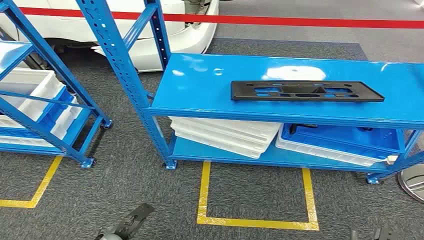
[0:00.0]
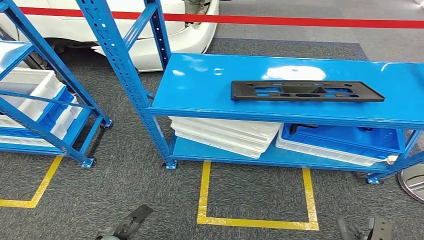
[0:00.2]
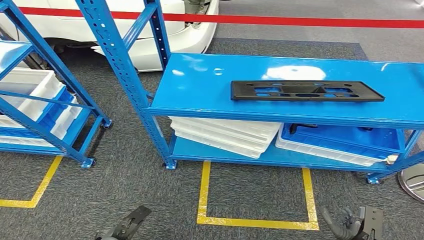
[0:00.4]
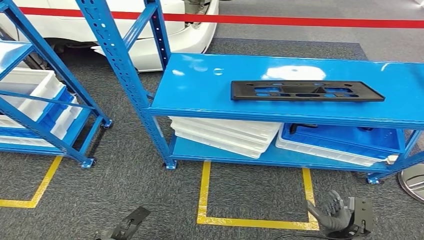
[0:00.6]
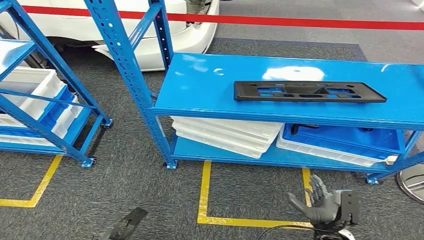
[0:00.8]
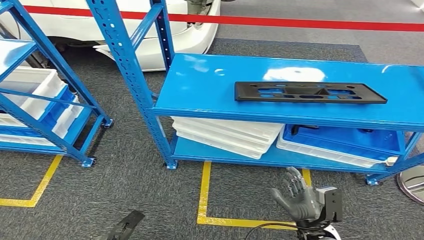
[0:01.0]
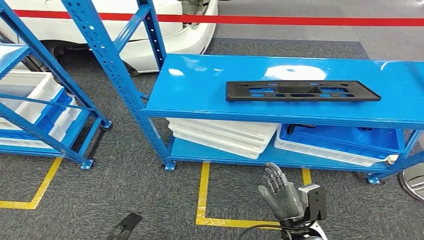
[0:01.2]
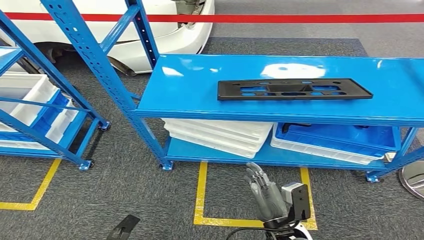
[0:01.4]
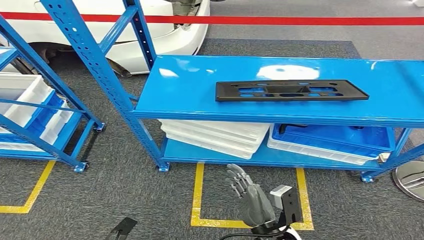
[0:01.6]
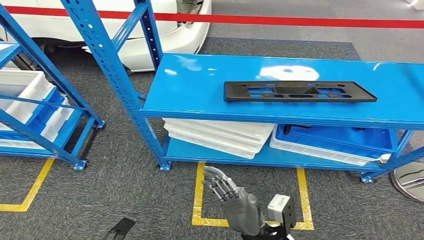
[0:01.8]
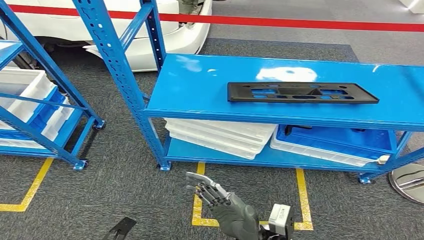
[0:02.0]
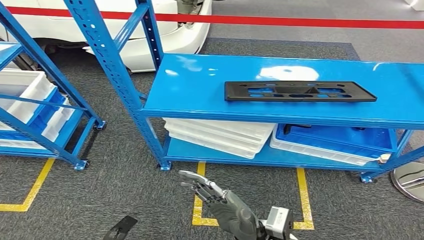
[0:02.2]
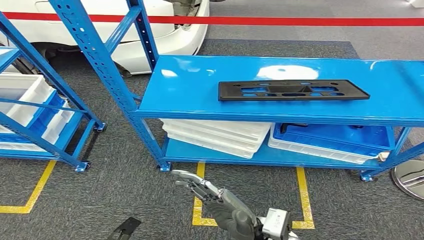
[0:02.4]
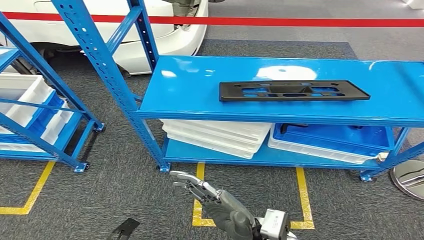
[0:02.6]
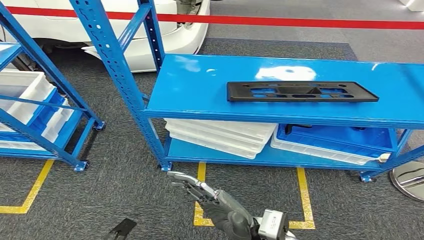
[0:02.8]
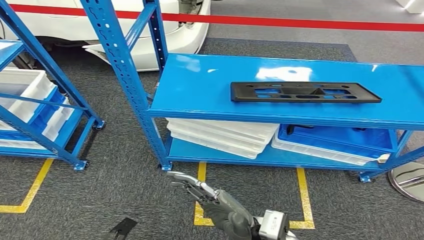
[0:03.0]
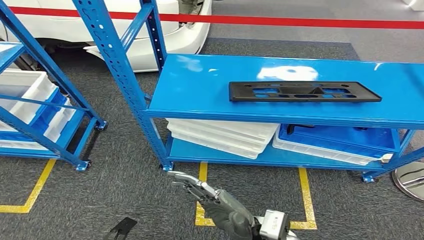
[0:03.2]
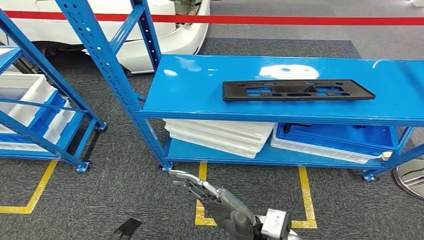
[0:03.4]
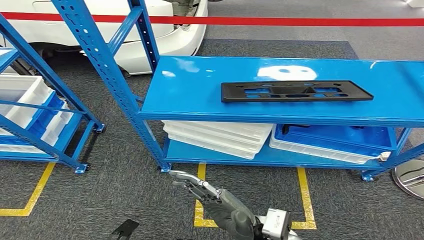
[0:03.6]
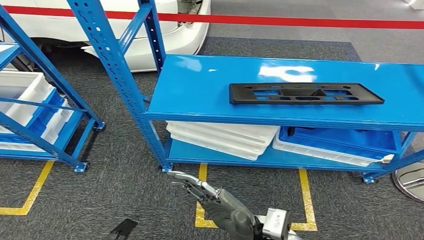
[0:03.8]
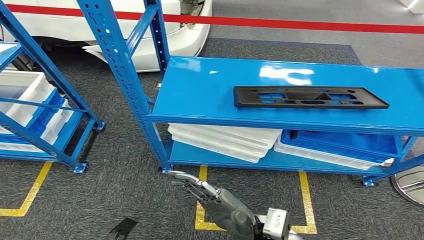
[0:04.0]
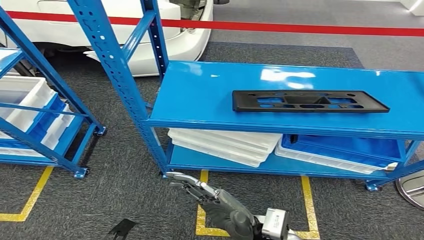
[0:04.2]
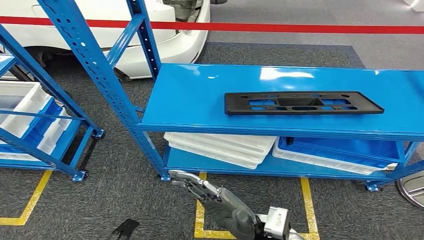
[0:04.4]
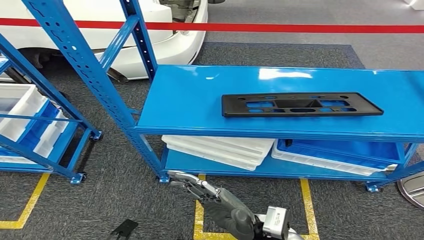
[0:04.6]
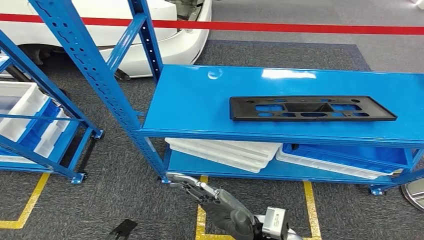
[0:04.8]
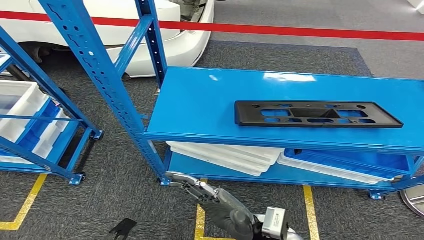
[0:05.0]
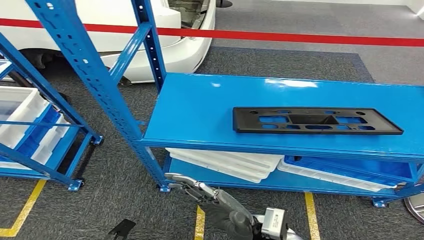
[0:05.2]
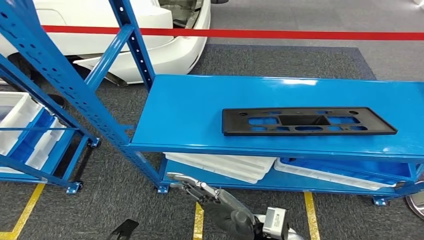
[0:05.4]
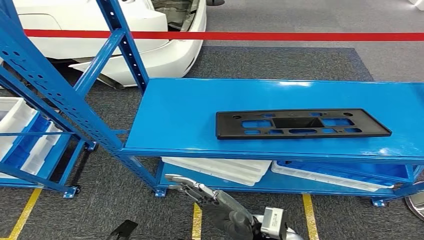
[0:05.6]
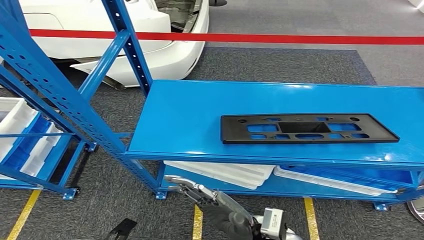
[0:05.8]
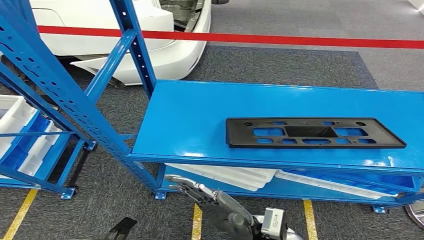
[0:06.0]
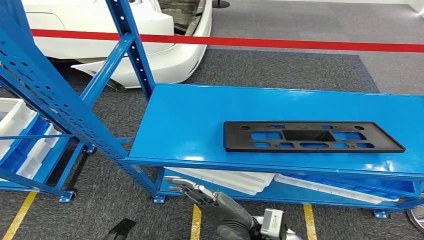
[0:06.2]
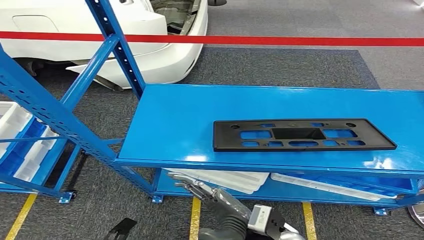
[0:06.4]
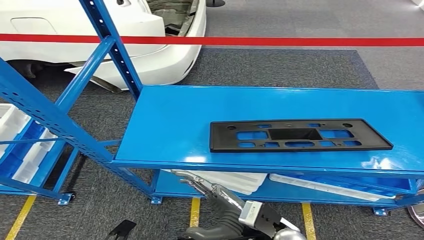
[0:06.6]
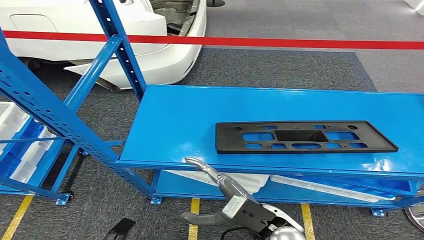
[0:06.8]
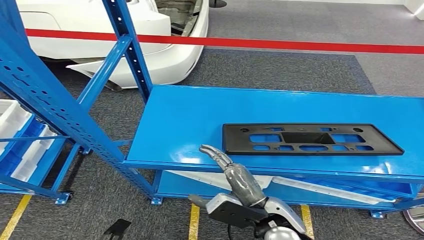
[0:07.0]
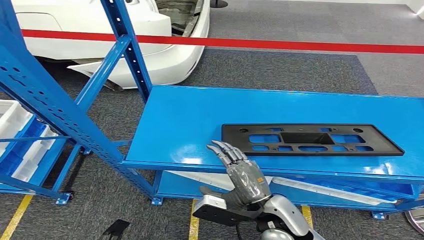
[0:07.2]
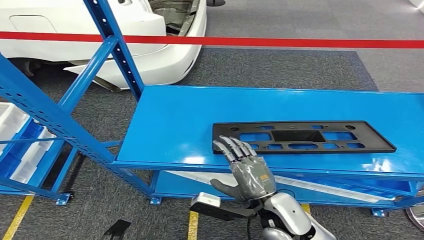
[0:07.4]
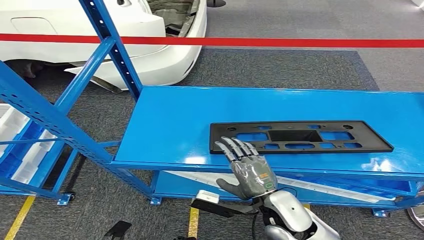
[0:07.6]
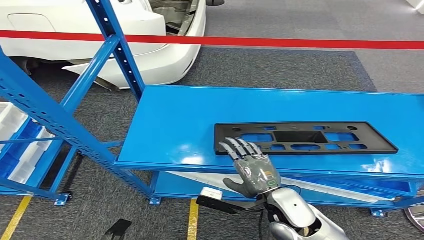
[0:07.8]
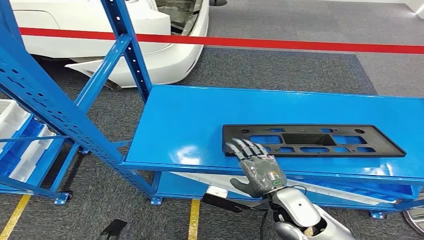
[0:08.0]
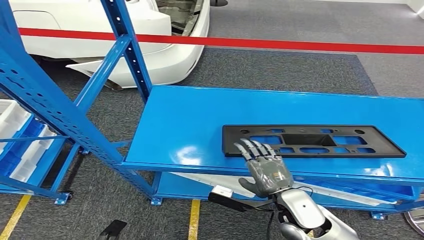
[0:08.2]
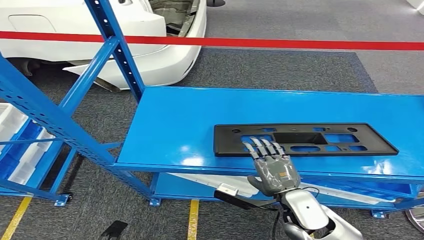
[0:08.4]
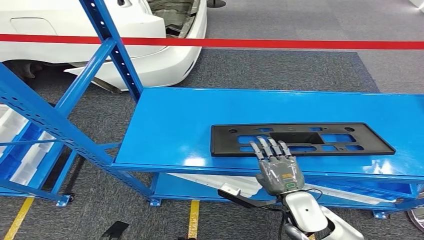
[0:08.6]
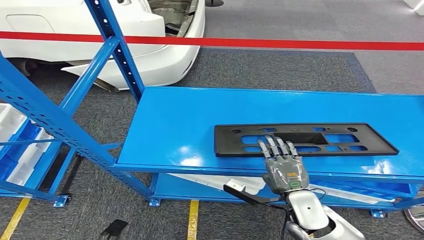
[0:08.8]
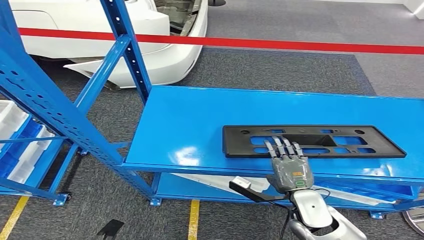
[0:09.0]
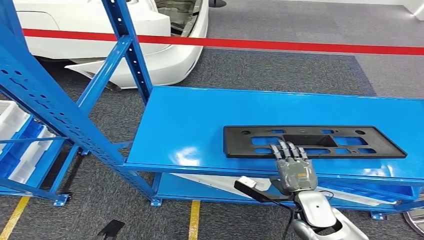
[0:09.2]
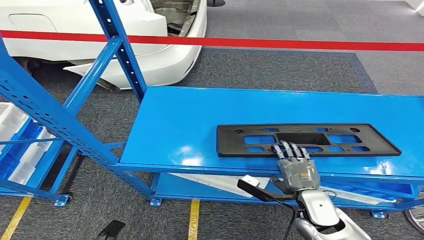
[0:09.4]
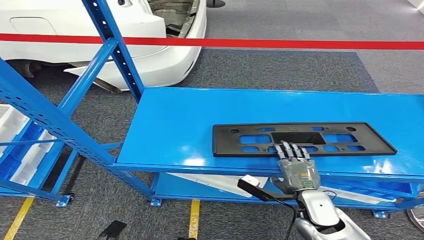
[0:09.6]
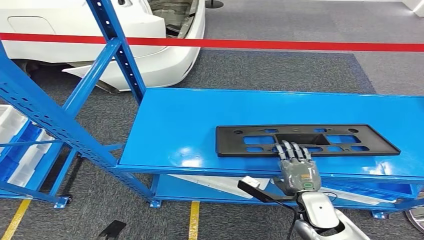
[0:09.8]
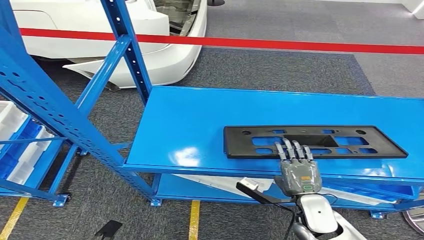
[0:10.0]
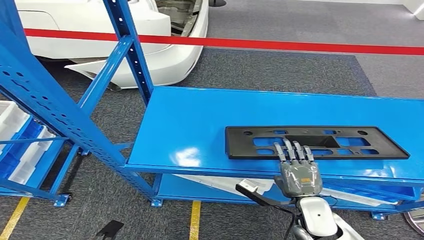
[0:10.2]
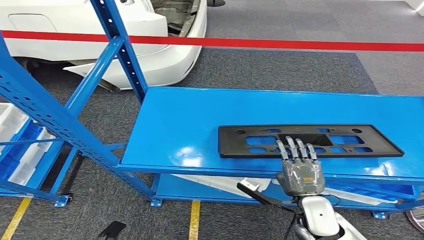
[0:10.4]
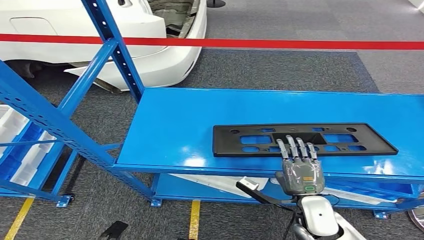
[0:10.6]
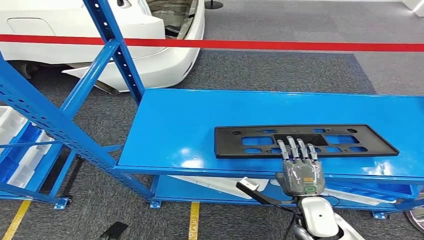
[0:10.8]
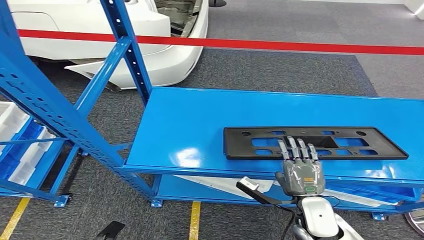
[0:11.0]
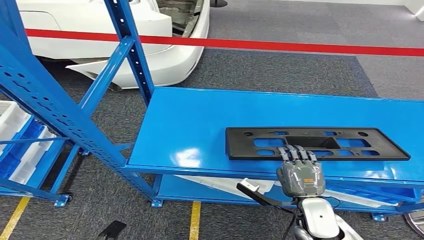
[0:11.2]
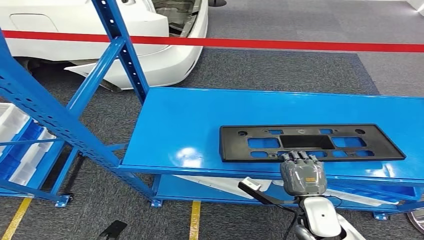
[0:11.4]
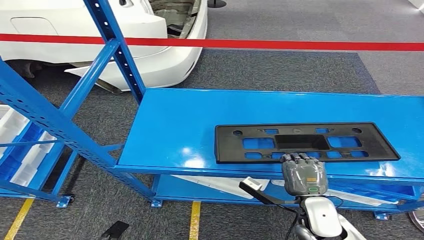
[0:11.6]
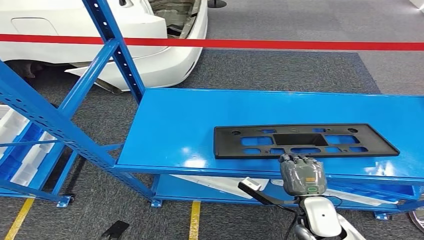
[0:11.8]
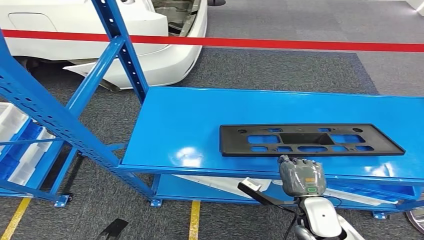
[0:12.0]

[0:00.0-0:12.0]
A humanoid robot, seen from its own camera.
0:09.0 to 0:10.4: The hands move only a little.
0:10.4 to 0:12.0: Both hands stay put.

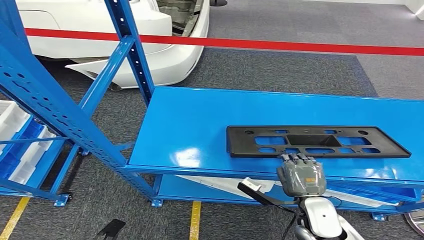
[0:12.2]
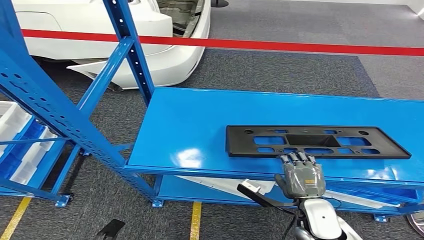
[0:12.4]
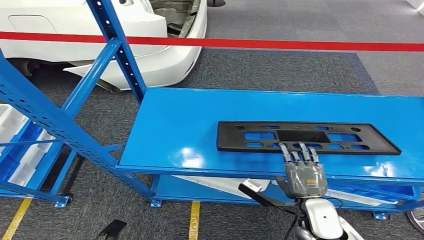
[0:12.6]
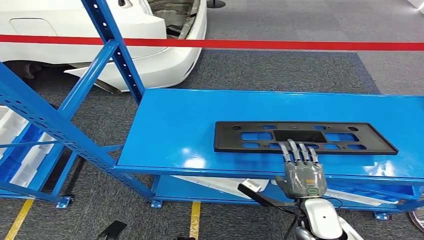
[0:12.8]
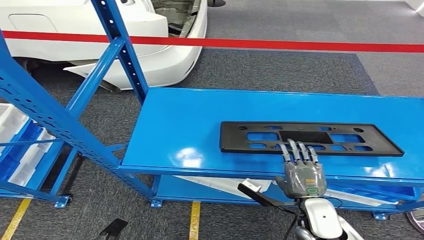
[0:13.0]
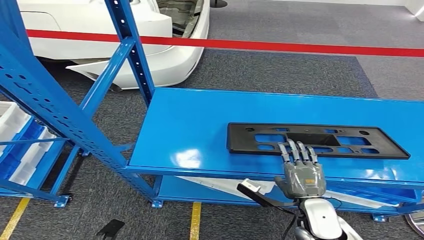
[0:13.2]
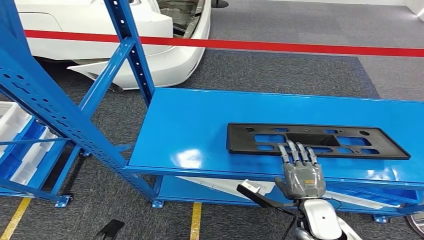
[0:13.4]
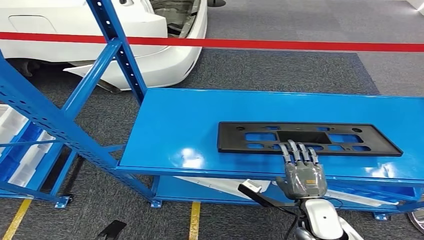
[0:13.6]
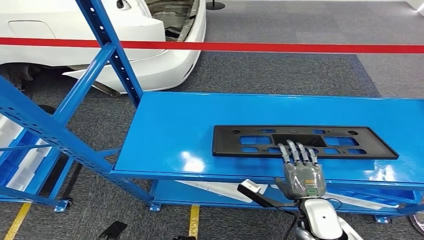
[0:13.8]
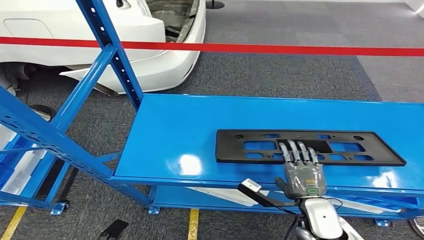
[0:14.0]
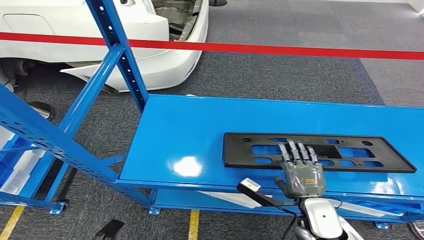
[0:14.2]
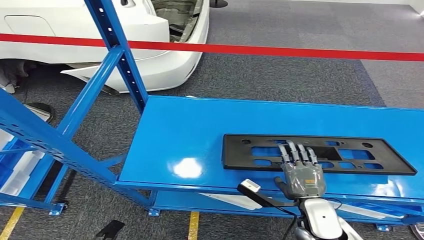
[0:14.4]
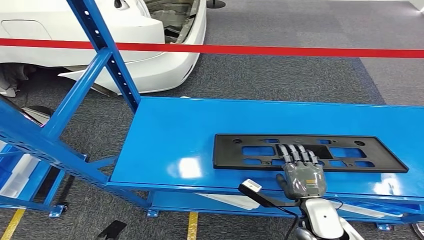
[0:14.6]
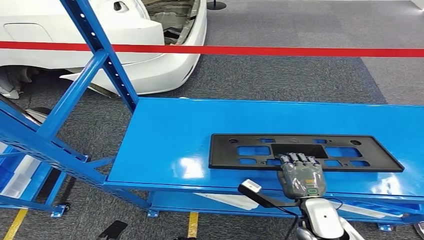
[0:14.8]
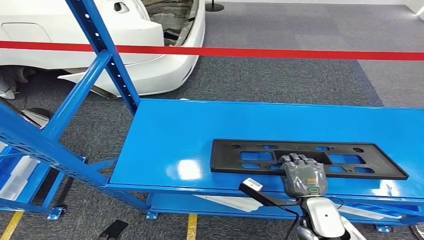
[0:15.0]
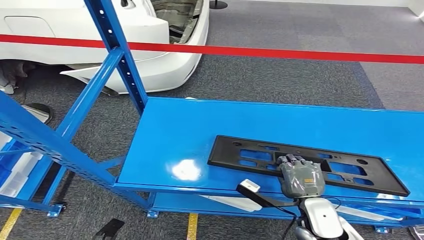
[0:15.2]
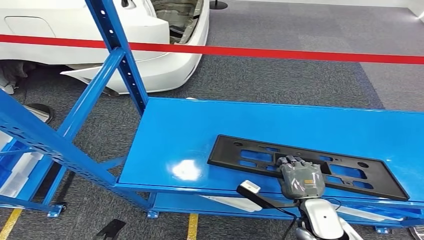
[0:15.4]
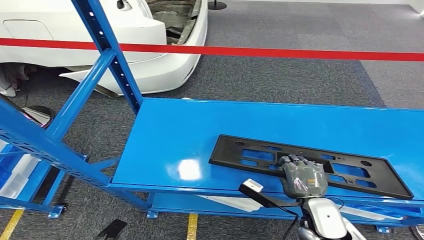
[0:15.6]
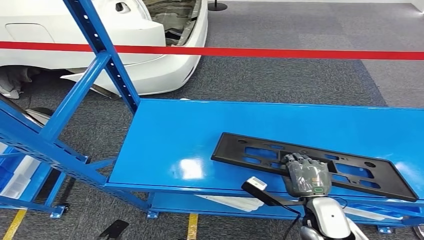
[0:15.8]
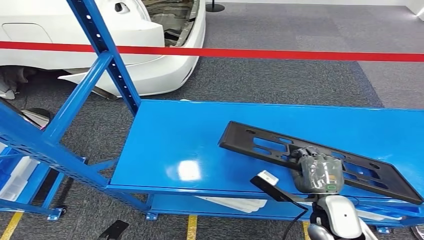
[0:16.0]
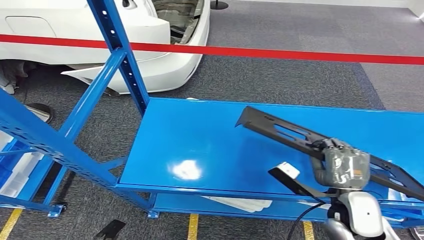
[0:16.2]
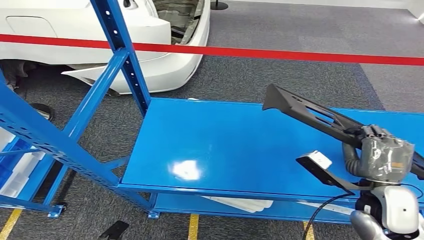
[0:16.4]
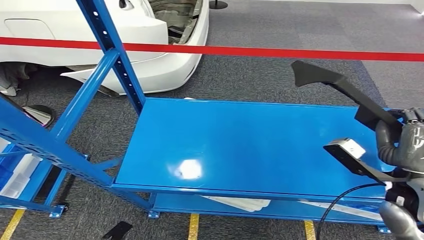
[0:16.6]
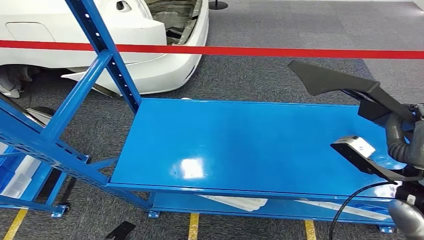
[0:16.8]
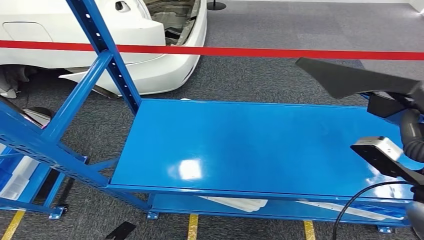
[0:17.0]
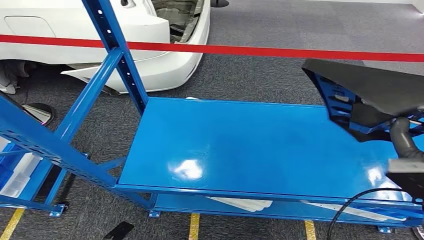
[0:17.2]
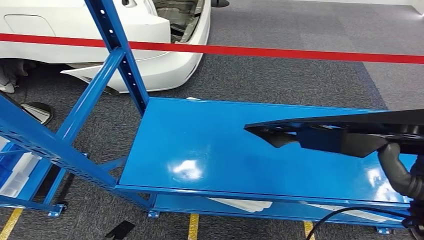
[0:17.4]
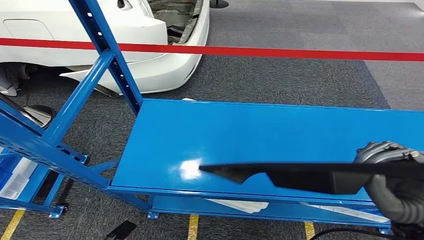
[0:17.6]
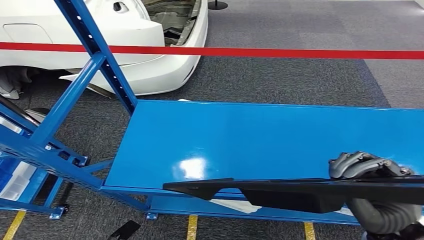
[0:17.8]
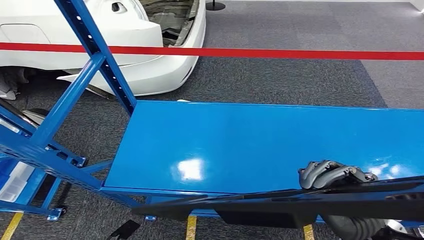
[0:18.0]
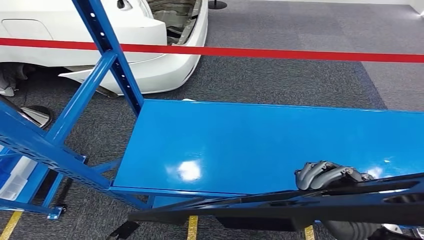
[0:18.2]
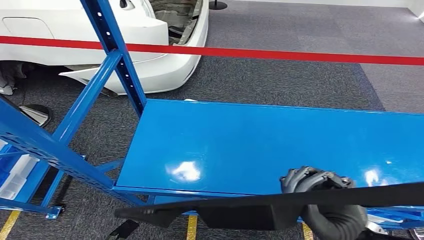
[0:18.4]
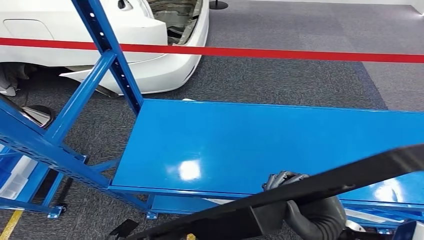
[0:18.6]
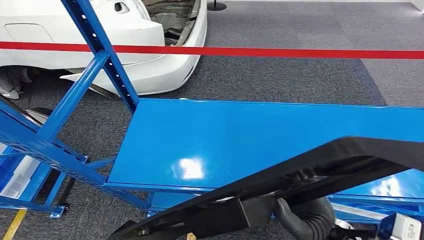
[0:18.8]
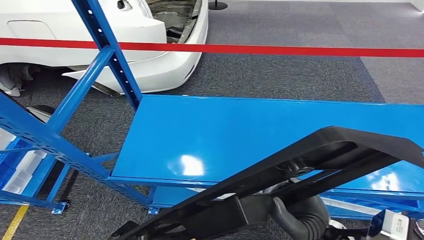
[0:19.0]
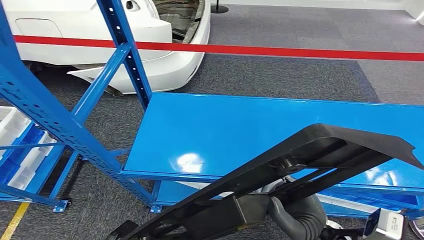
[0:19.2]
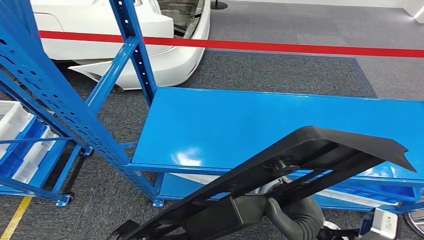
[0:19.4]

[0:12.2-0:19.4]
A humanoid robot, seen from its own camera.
Step, 0:12.2 to 0:17.4: Pick up the large material from the shelf.
